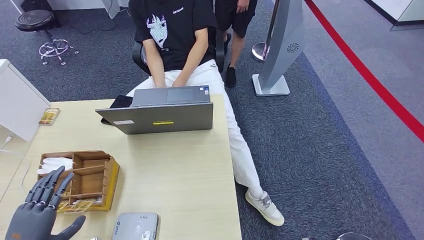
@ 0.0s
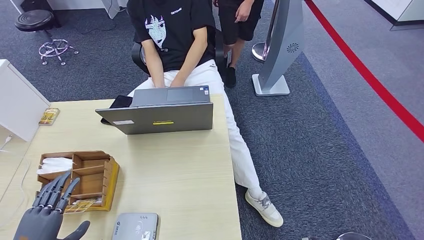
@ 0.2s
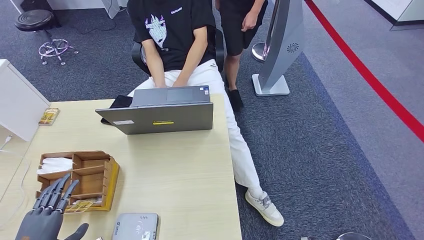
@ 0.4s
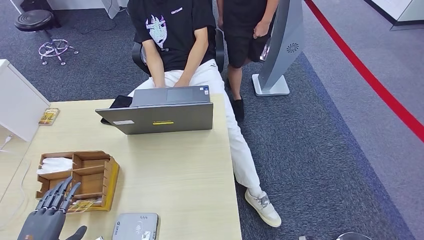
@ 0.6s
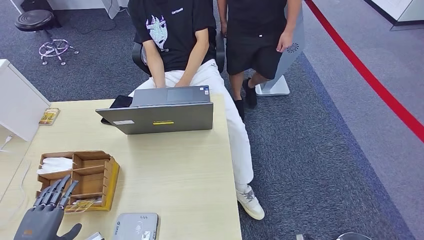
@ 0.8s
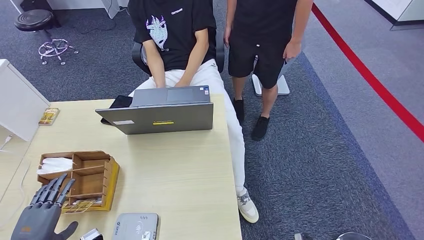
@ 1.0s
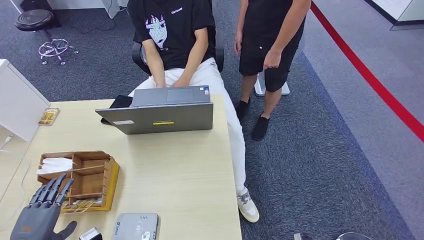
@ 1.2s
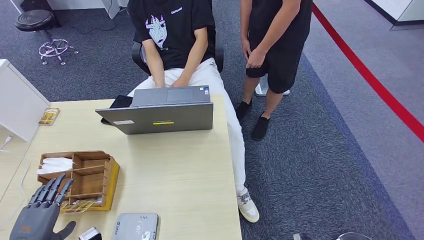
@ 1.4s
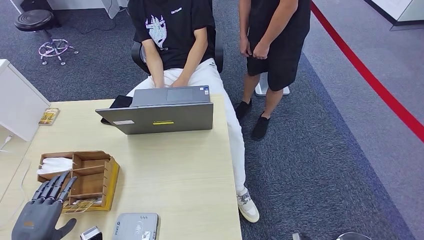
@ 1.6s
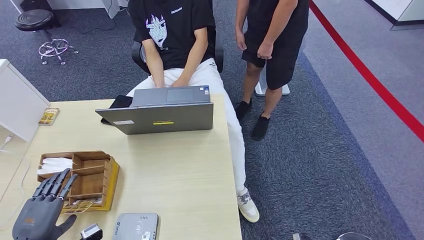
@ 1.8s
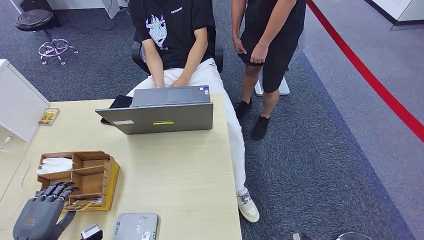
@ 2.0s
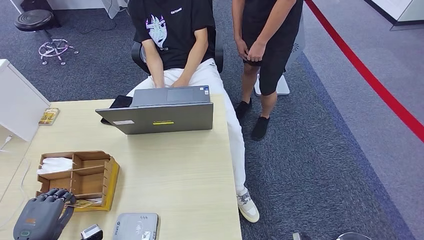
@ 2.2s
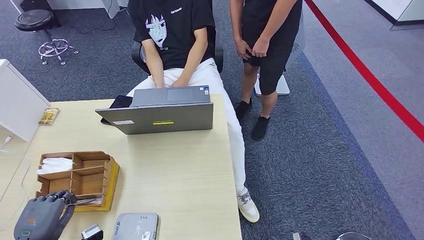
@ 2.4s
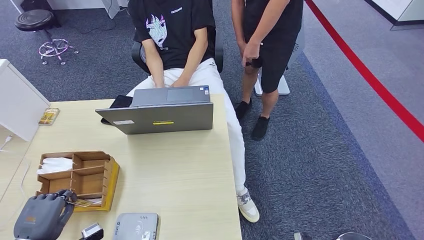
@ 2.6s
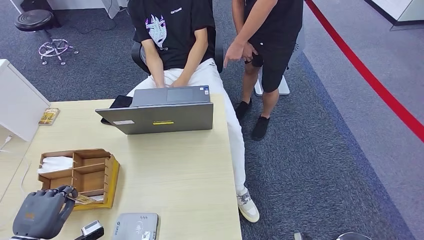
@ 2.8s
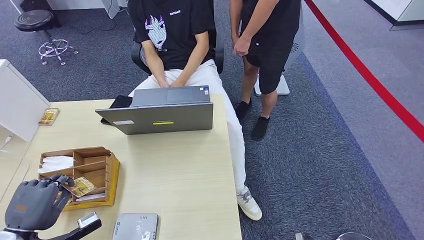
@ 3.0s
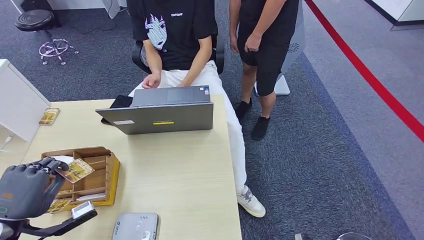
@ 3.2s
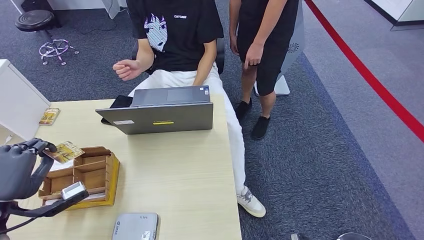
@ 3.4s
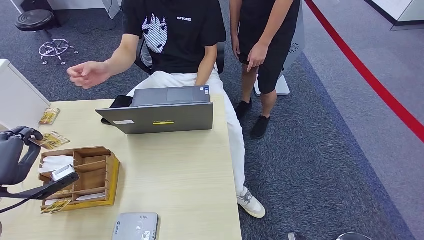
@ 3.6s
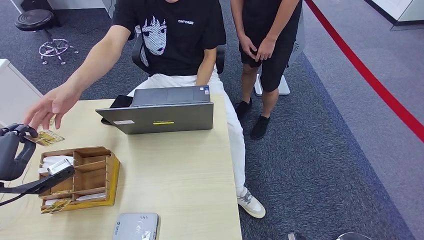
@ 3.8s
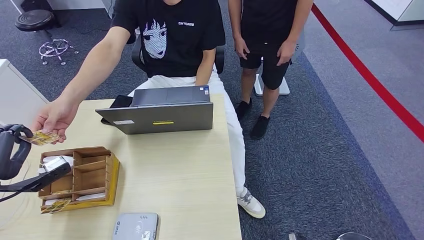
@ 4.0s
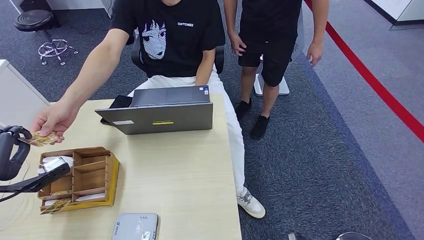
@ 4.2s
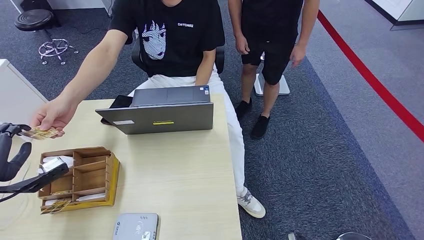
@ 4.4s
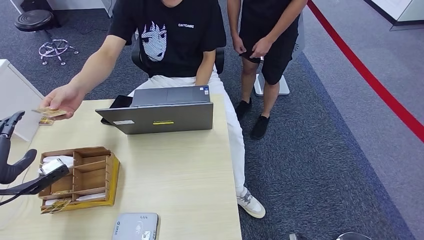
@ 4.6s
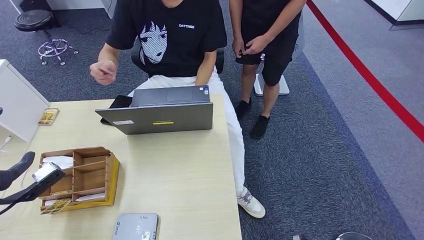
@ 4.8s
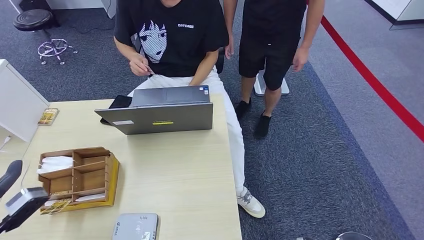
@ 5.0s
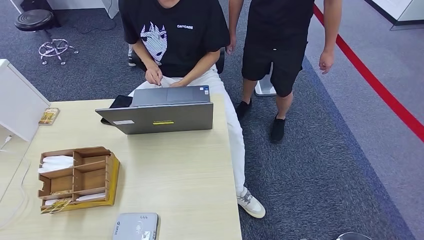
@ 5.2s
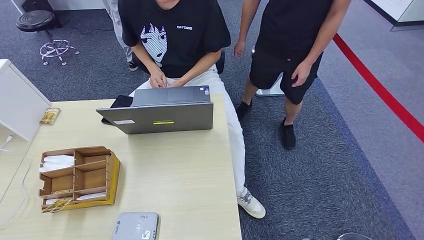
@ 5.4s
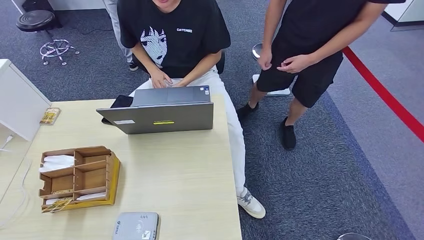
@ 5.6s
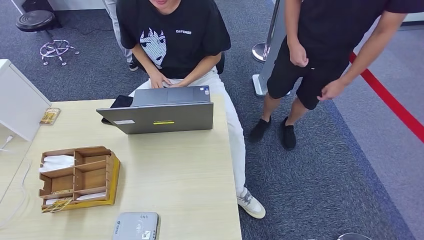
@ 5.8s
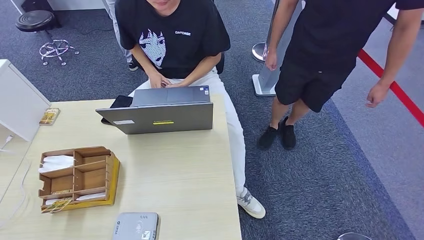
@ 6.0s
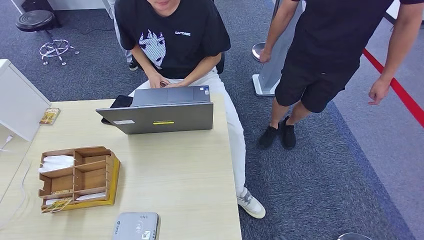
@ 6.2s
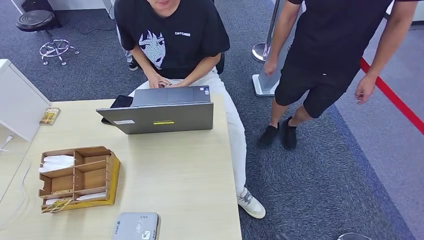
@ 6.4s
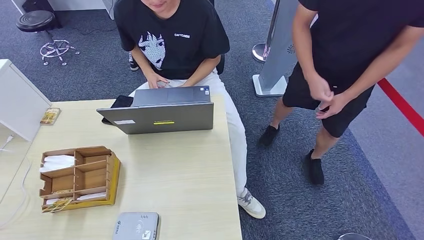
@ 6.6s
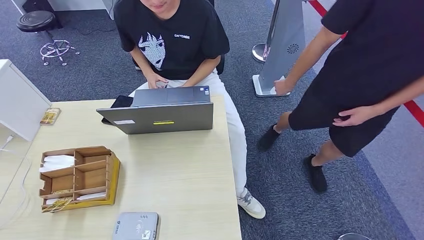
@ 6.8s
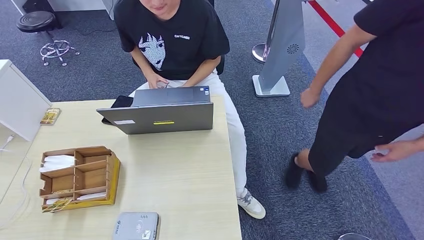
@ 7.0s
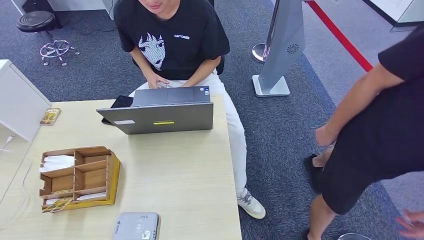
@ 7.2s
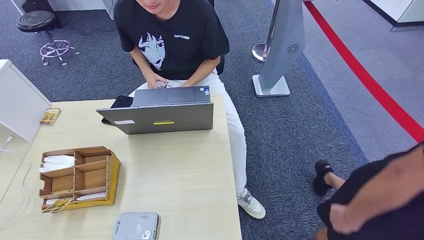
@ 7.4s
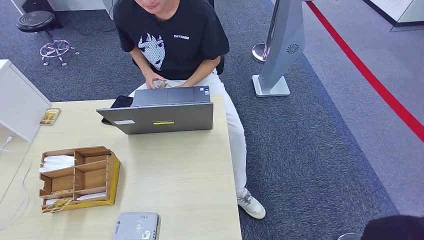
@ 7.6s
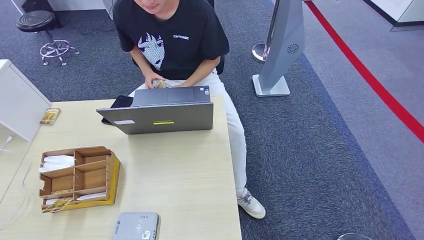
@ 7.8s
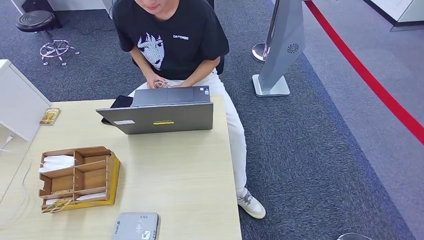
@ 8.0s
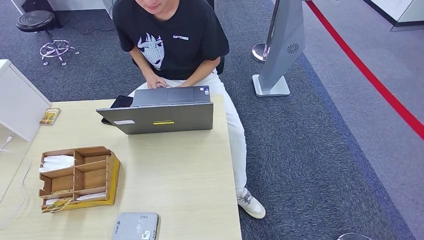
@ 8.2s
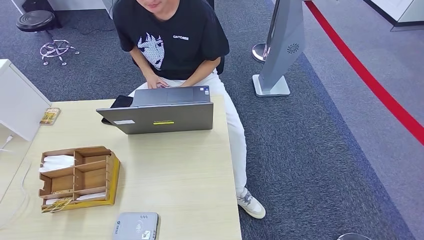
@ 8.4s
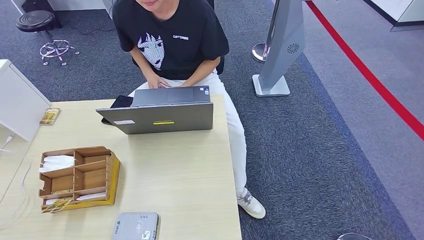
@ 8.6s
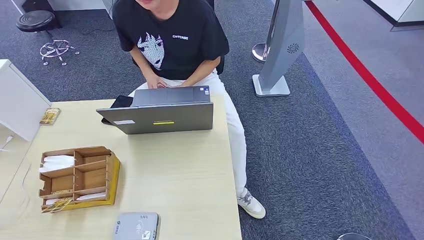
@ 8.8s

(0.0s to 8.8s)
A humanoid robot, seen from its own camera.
Step, 0.0s - 1.8s: Hand the ID card to the person.
Step, 2.0s - 4.0s: Pick up the room key from the key card box.
Step, 4.2s - 8.6s: Hand the room key to the person.
0.0s - 1.4s: The left hand changes place by about 5 cm.
1.4s - 3.0s: The left hand changes place by some 5 cm.
5.8s - 7.4s: The right hand is displaced downward by some 5 cm; the left hand is displaced downward by roughly 30 cm.
7.4s - 8.8s: The right hand changes place by approximately 5 cm.
